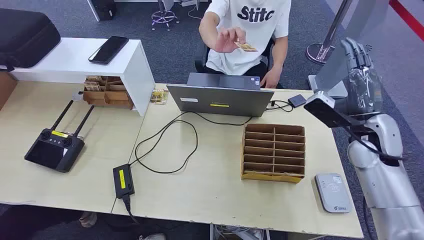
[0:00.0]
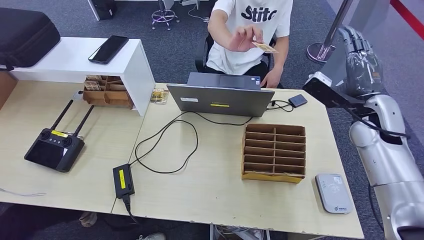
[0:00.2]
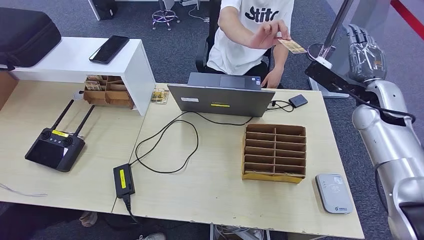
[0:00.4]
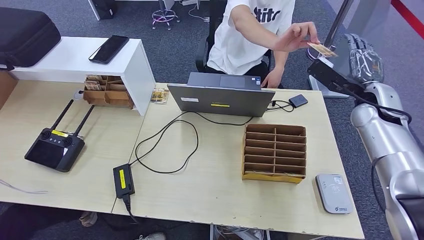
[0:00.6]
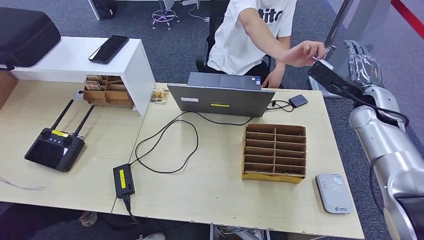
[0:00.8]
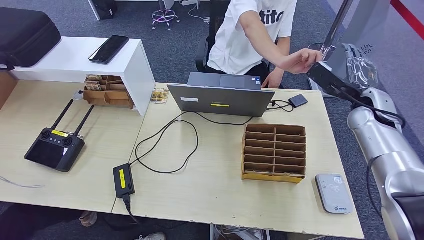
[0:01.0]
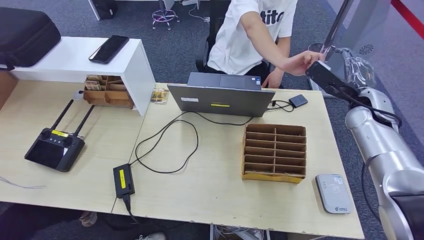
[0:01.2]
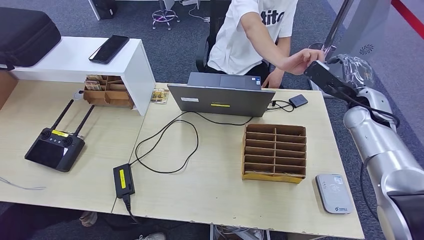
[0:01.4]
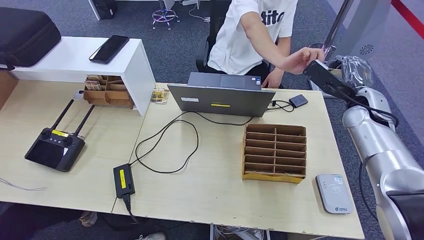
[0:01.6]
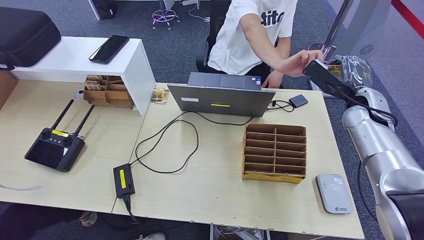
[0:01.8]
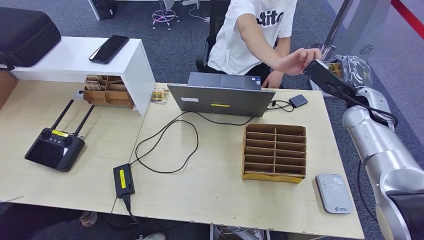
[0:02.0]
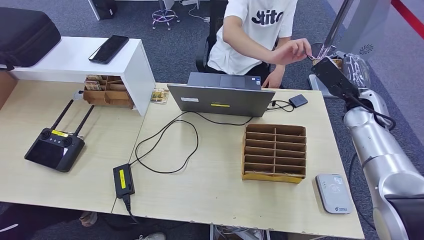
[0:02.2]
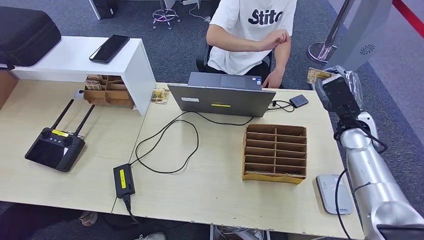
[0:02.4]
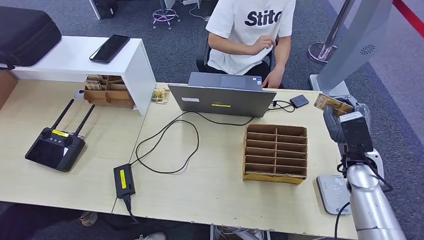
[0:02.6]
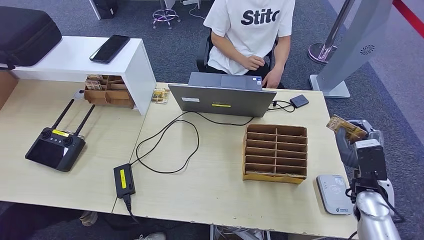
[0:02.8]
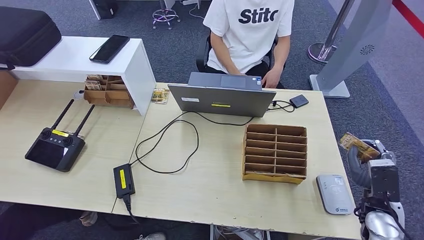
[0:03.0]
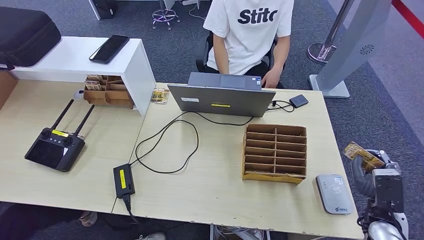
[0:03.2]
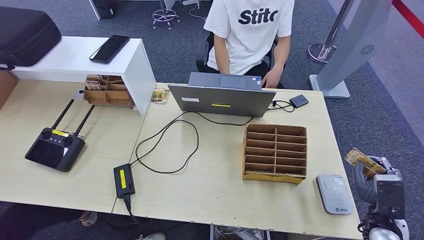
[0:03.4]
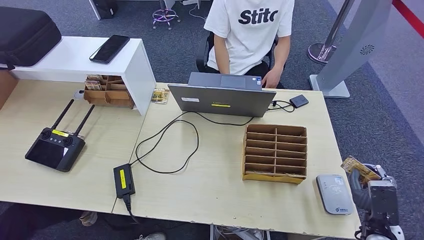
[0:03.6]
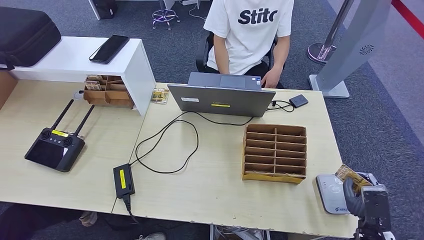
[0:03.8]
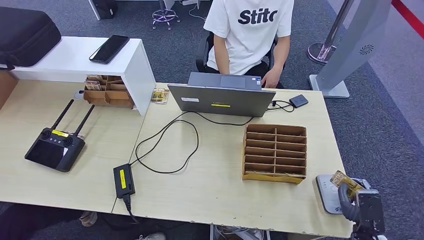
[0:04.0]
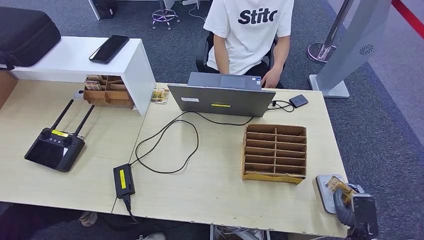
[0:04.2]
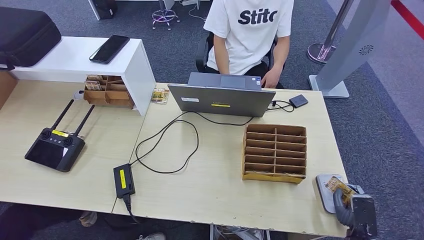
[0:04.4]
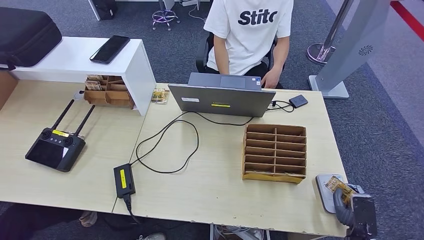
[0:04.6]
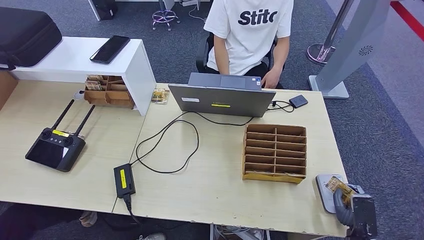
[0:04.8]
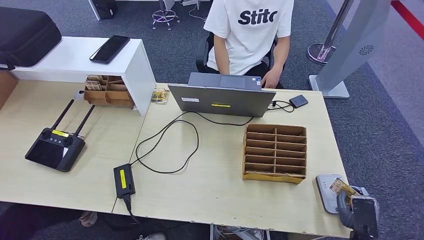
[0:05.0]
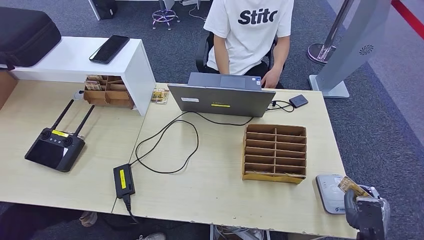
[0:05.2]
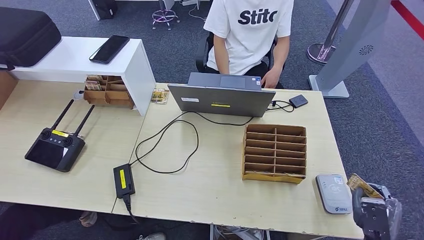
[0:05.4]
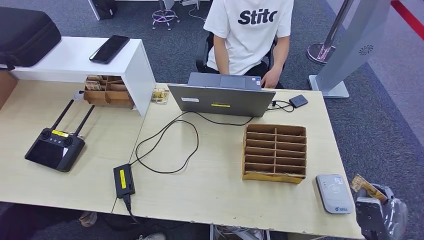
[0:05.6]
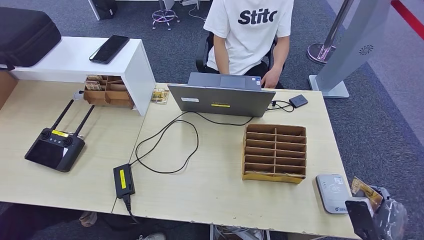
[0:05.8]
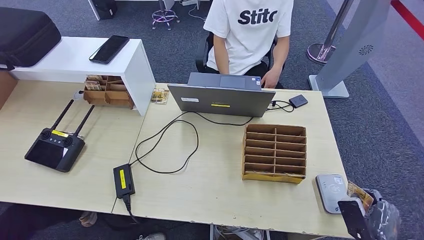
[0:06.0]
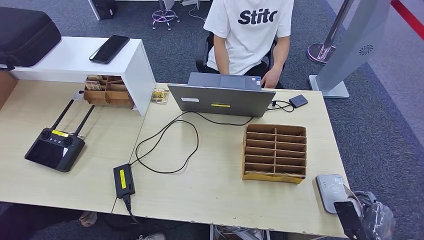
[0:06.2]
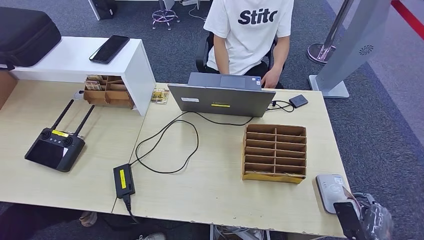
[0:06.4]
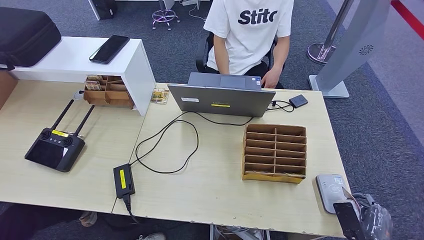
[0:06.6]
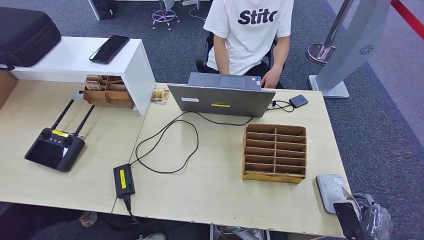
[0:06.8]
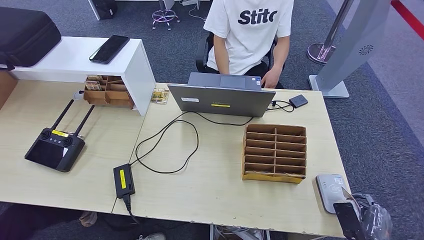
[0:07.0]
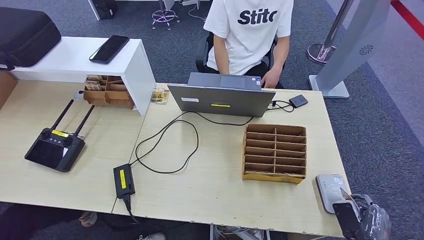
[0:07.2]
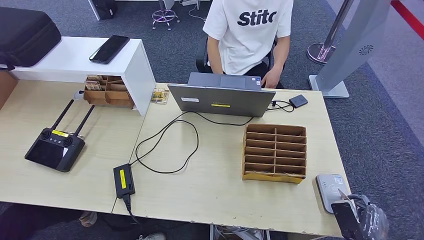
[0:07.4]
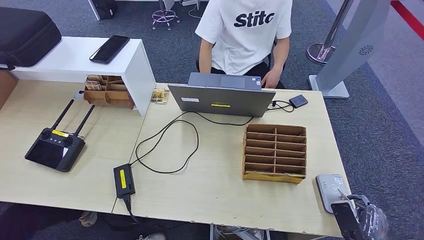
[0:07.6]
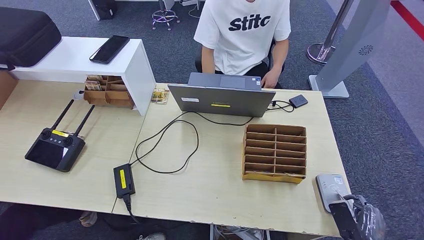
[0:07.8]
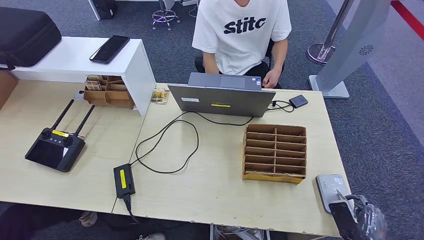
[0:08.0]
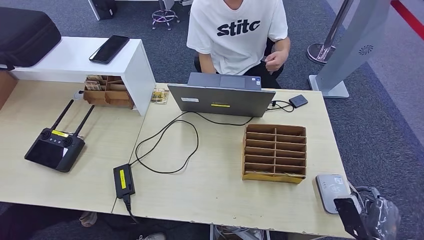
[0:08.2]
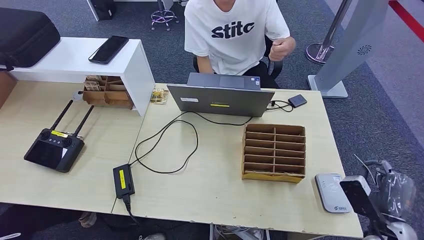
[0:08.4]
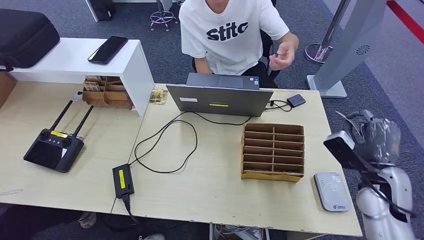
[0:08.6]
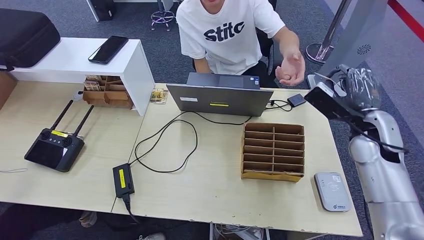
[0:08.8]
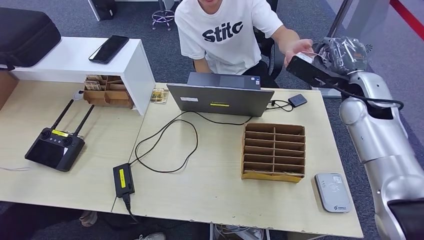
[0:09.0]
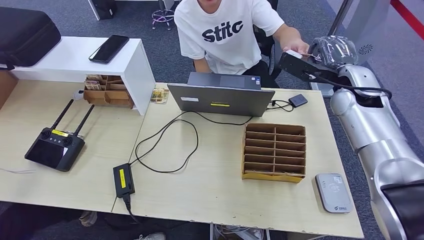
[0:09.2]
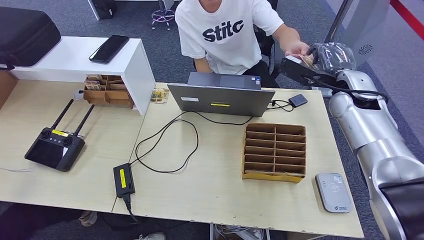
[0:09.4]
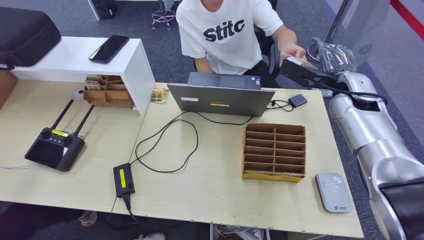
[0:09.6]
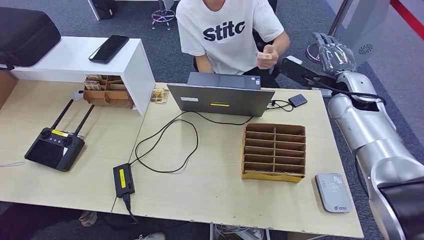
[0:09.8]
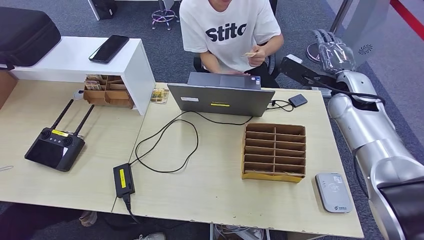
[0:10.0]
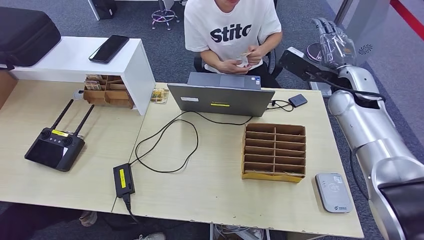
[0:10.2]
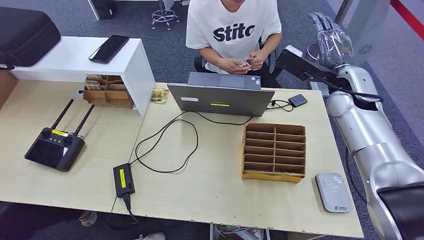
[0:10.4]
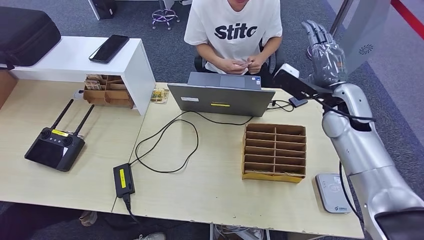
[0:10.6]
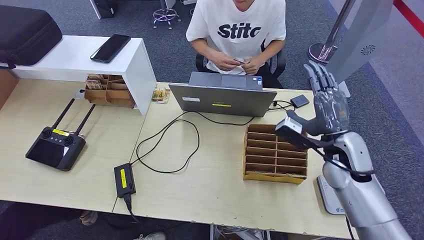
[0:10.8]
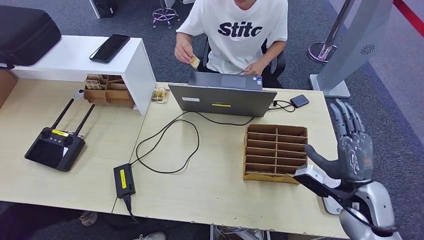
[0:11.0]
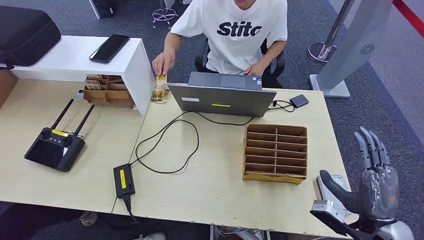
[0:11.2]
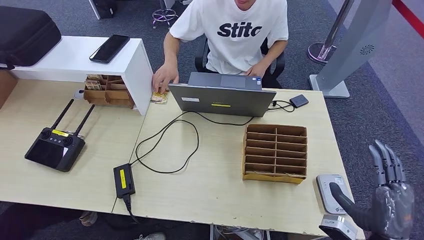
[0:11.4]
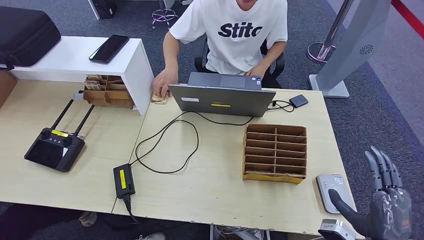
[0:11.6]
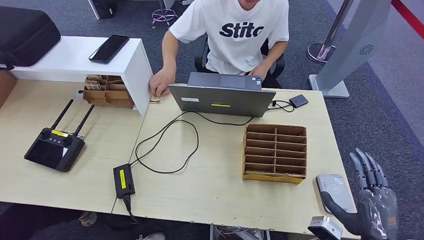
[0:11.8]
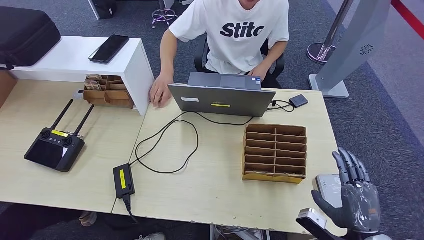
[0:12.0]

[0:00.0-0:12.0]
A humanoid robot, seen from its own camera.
Step, 0:00.0 to 0:03.0: Take the ID card from the person's hand.
Step, 0:03.2 to 0:08.4: Place the ID card on the card reader.
Step, 0:08.6 to 0:11.0: Hand the ID card to the person.
0:01.6 to 0:03.0: The right hand shifts about 25 cm backward and downward.
0:03.0 to 0:04.4: The right hand travels downward and backward by about 15 cm.
0:06.0 to 0:07.6: The hands move only a little.
0:09.0 to 0:10.4: The hands make only small movements.

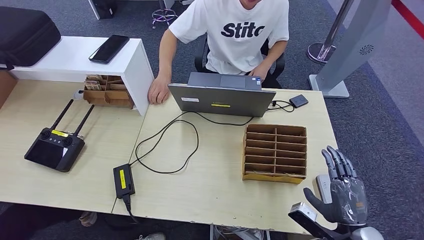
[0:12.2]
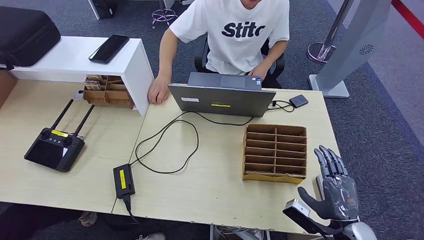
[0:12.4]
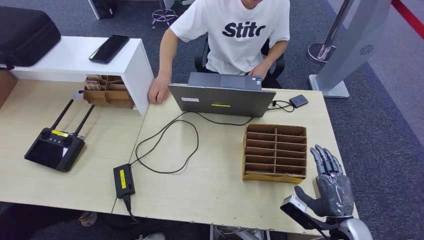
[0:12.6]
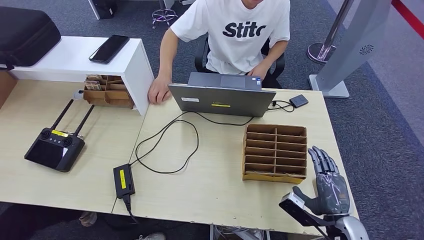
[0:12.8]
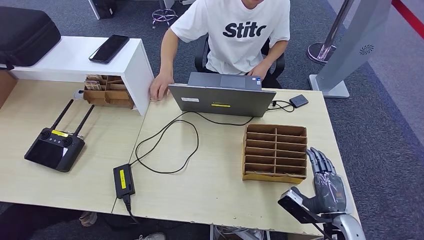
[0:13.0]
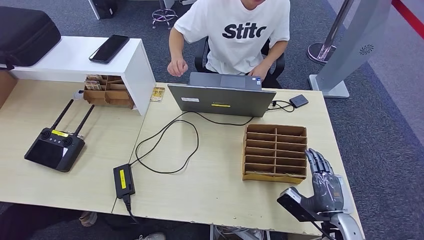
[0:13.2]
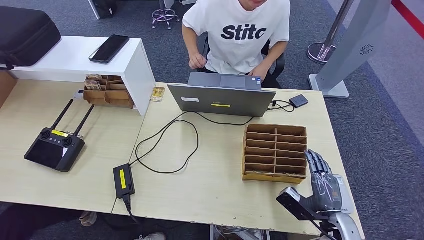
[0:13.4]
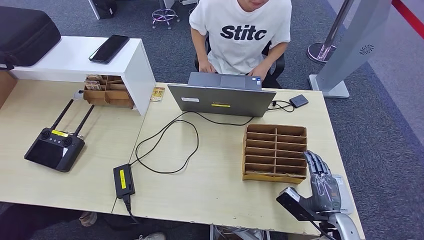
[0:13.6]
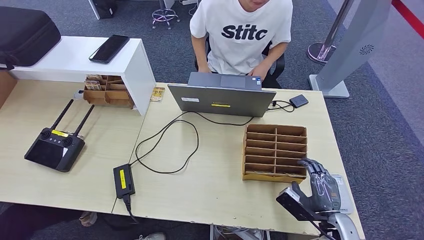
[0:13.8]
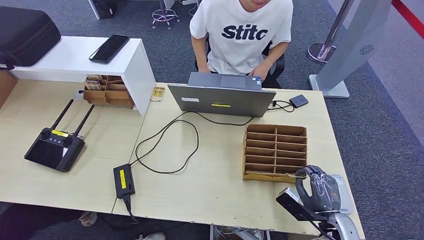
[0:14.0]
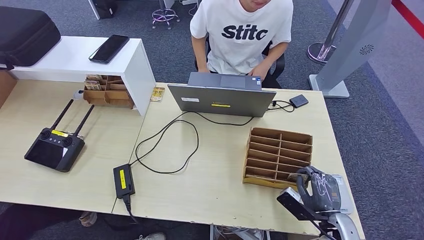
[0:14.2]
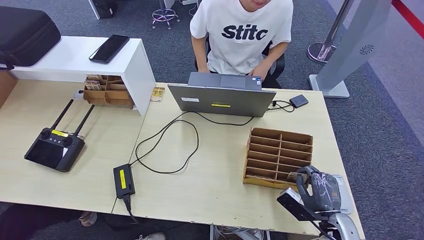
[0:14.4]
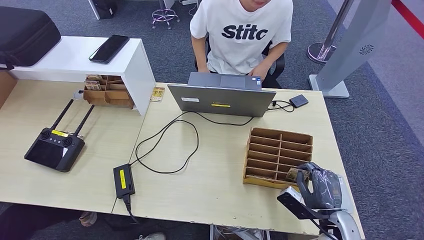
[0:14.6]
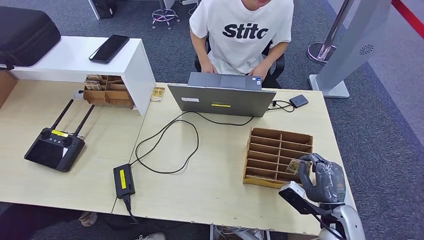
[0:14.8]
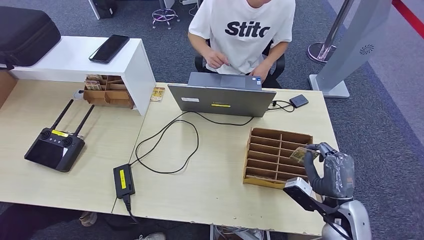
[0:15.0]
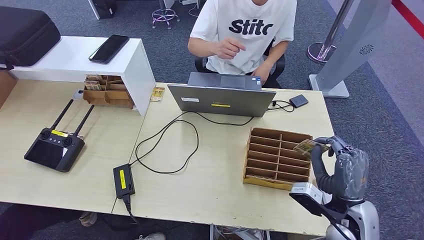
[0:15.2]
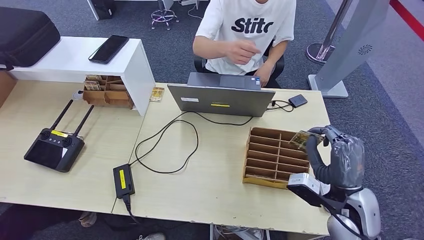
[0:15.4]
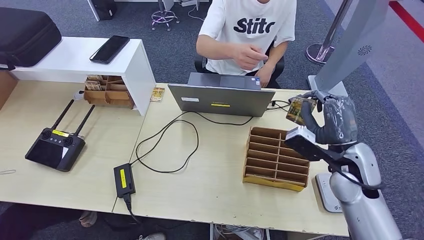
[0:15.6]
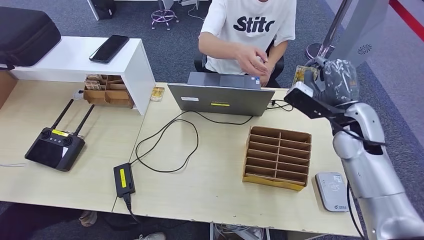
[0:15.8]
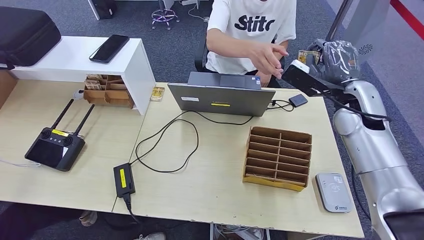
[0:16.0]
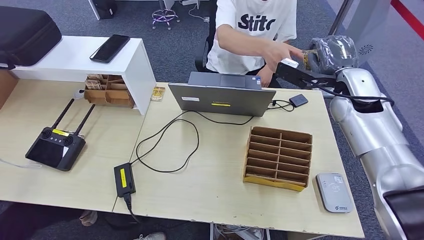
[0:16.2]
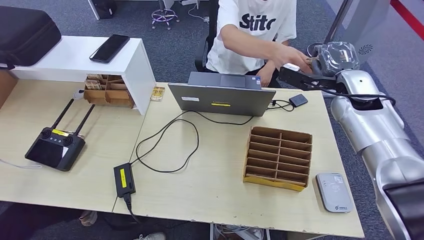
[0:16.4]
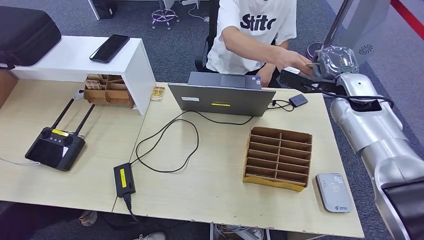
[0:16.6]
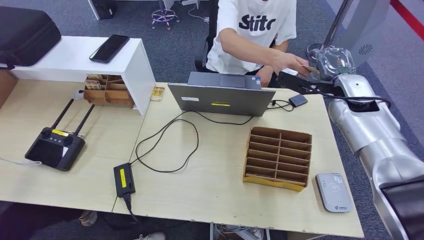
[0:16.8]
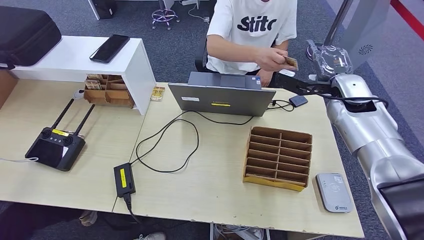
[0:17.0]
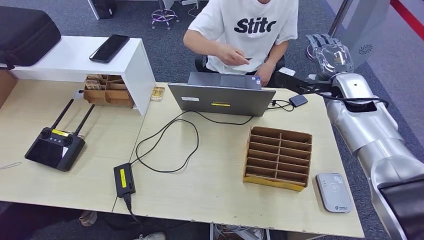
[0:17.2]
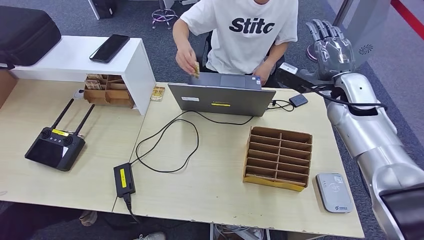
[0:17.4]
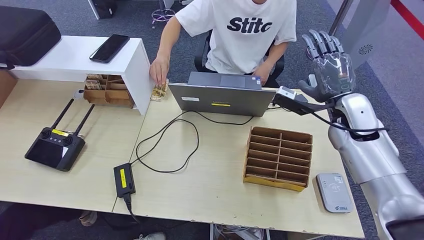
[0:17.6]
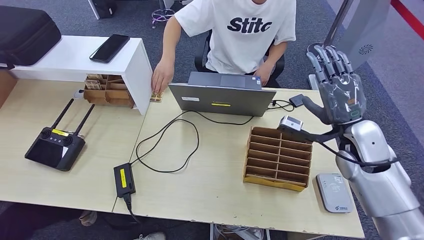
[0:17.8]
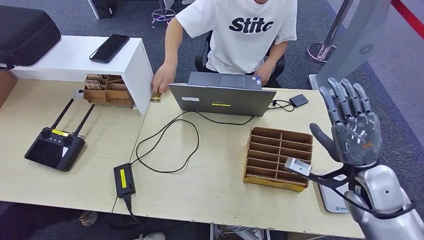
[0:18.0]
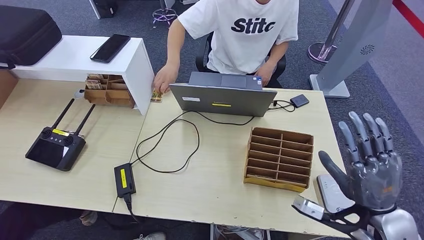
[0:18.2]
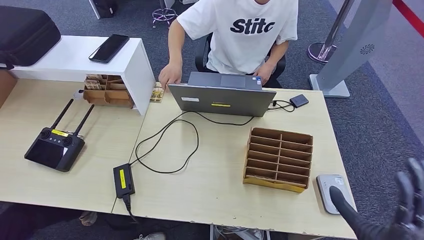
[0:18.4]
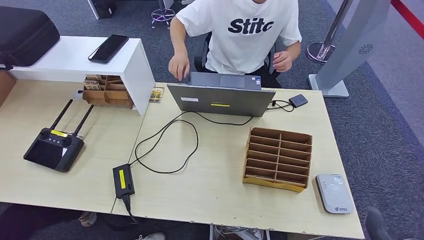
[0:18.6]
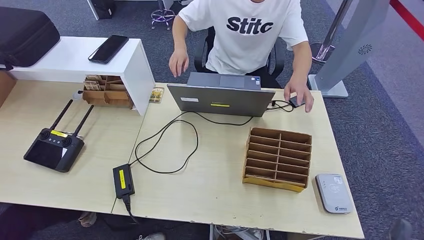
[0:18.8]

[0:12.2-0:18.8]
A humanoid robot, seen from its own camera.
Step, 0:13.6 to 0:16.0: Pick up the room key from the key card box.
Step, 0:16.2 to 0:18.8: Hand the room key to the person.
0:12.2 to 0:13.8: The right hand goes some 5 cm downward.
0:13.8 to 0:15.4: The right hand travels upward by about 15 cm.
0:15.4 to 0:17.2: The right hand moves forward and upward, roughly 25 cm.
0:17.2 to 0:18.8: The right hand shifts about 40 cm backward.
